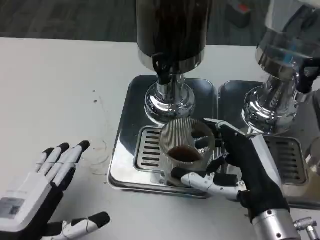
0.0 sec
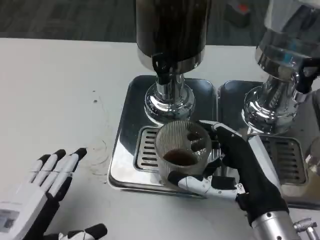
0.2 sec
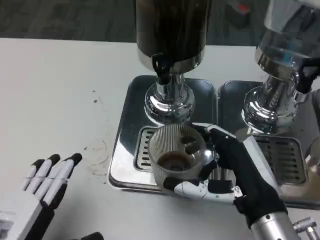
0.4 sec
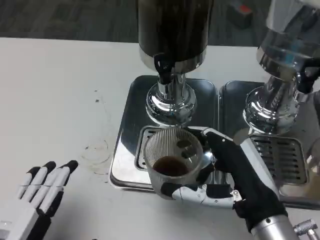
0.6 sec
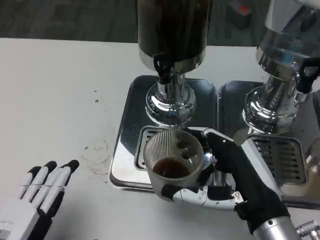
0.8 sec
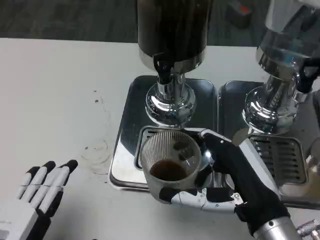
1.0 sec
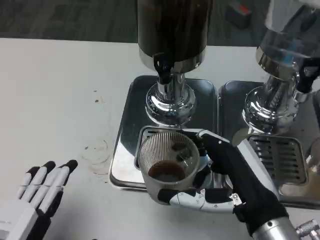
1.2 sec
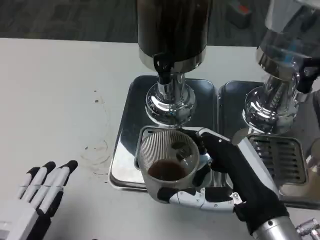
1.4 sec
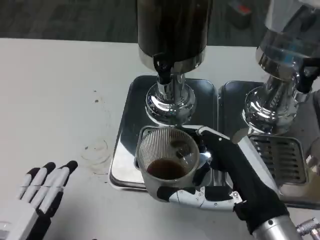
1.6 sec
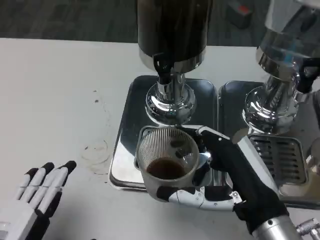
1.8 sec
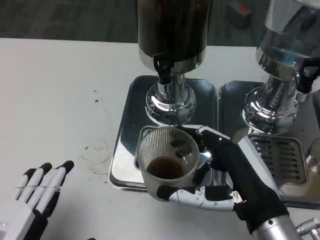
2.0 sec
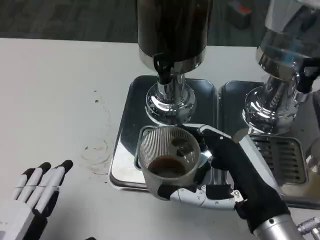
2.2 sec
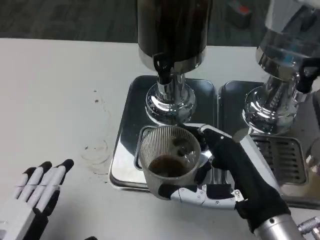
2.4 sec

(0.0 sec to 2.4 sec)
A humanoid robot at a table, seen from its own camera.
Task of the whole recording: Grasp the cup under the faucet to collect the drink, then remove the cup.
1.2 sec - 2.4 sec: Neither hand changes place.

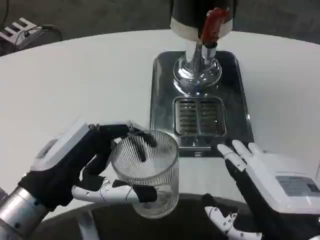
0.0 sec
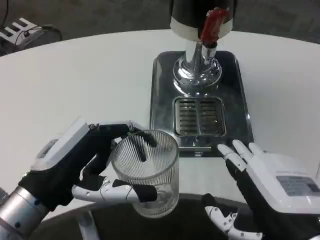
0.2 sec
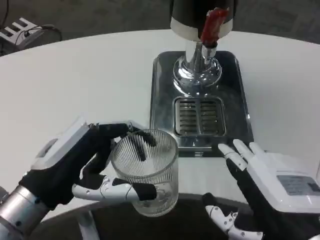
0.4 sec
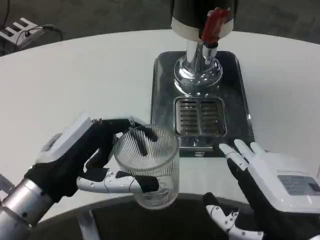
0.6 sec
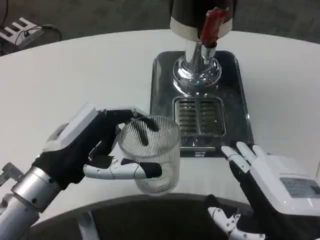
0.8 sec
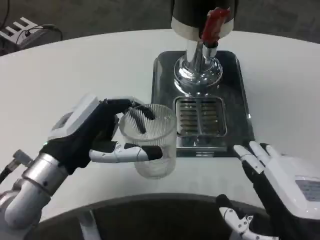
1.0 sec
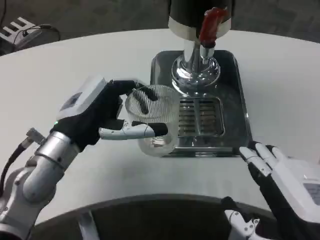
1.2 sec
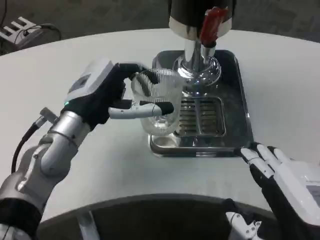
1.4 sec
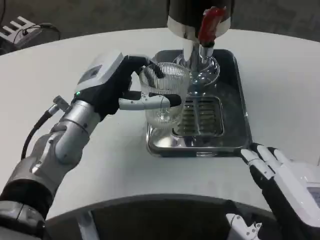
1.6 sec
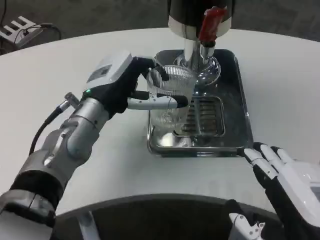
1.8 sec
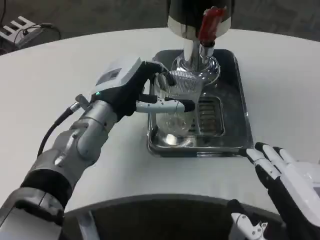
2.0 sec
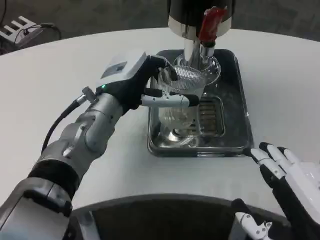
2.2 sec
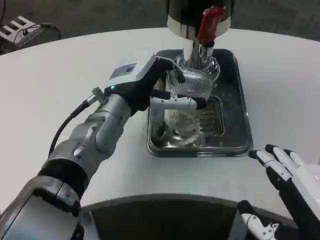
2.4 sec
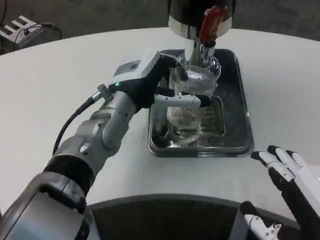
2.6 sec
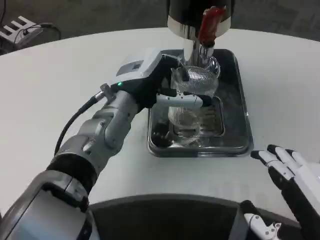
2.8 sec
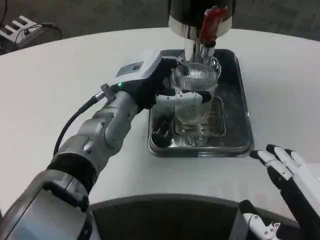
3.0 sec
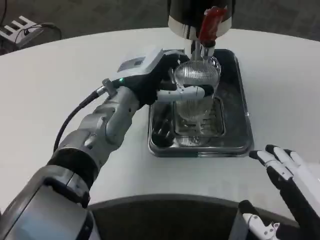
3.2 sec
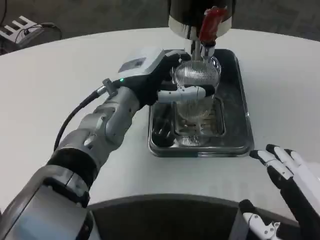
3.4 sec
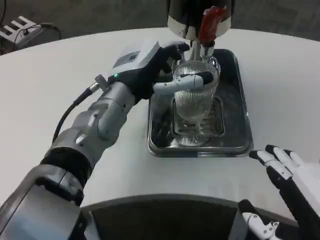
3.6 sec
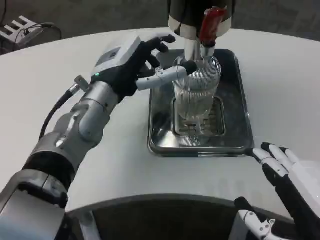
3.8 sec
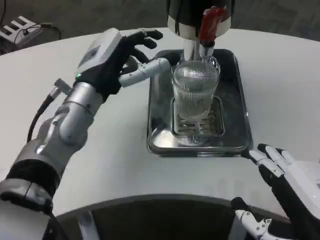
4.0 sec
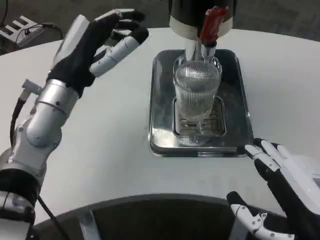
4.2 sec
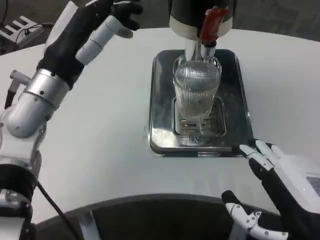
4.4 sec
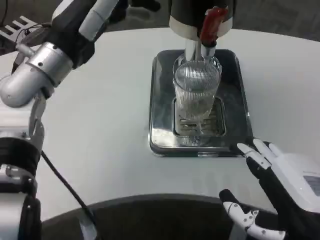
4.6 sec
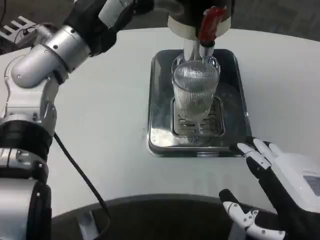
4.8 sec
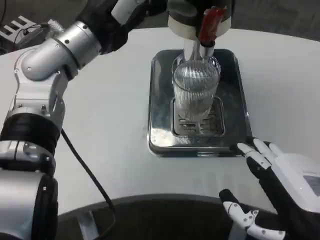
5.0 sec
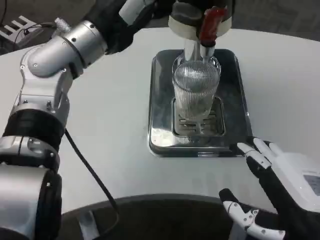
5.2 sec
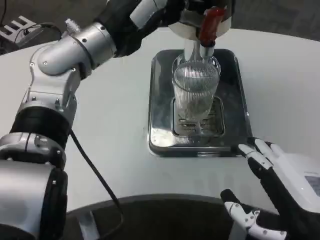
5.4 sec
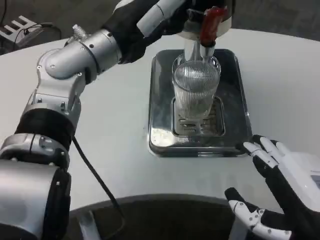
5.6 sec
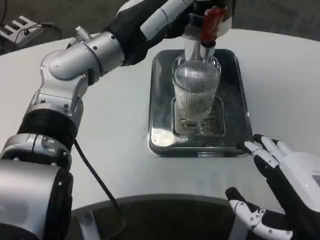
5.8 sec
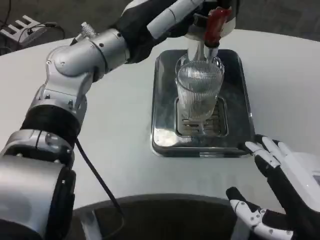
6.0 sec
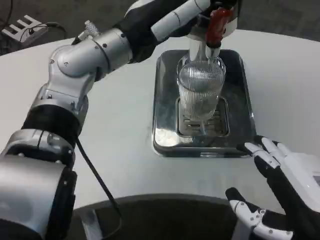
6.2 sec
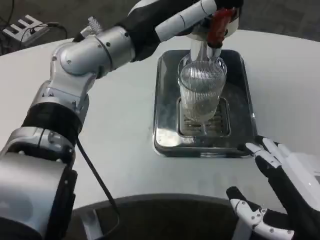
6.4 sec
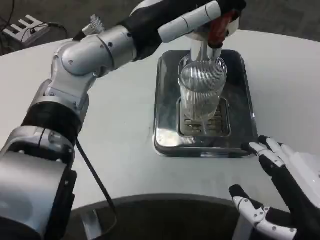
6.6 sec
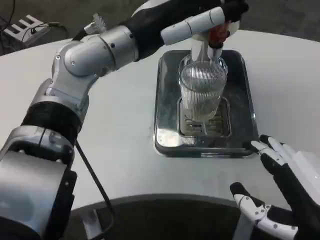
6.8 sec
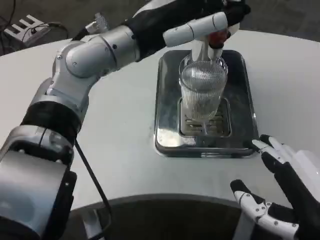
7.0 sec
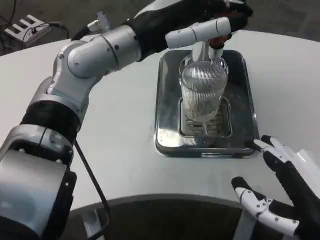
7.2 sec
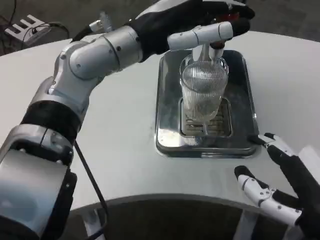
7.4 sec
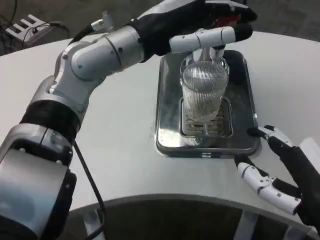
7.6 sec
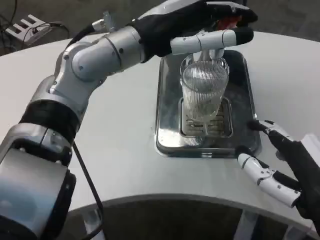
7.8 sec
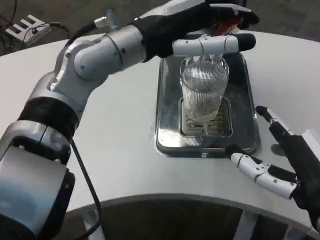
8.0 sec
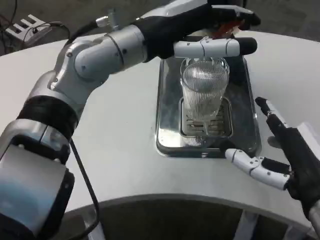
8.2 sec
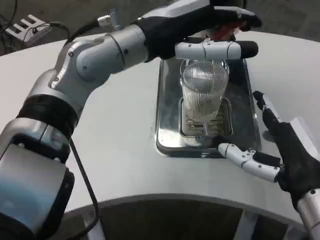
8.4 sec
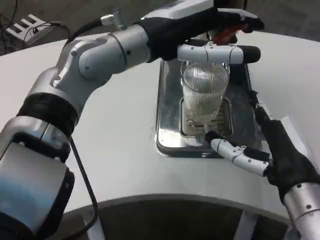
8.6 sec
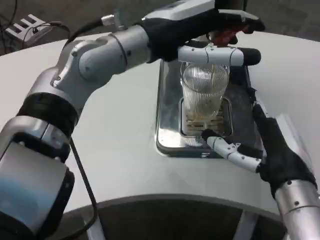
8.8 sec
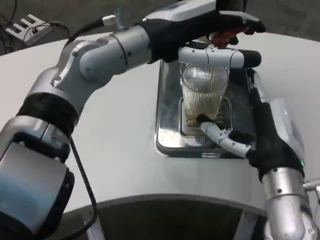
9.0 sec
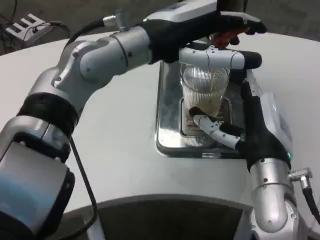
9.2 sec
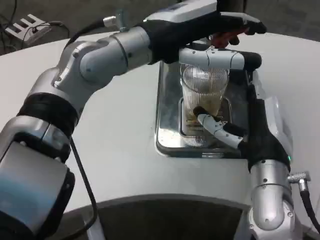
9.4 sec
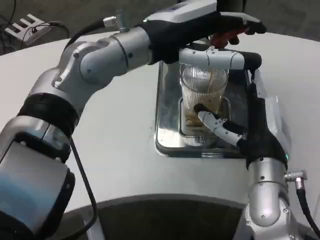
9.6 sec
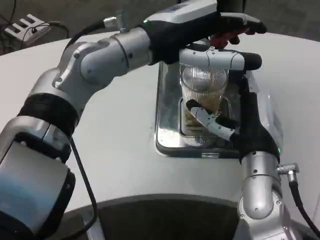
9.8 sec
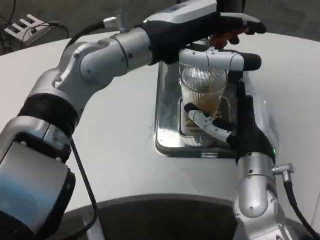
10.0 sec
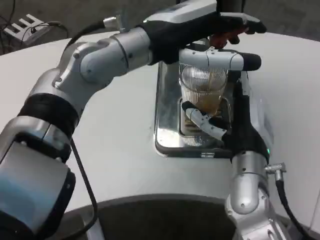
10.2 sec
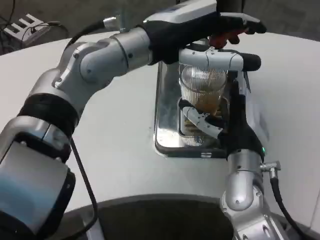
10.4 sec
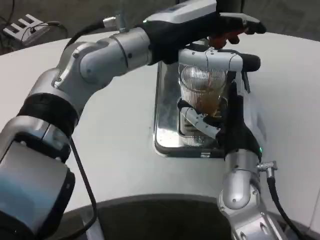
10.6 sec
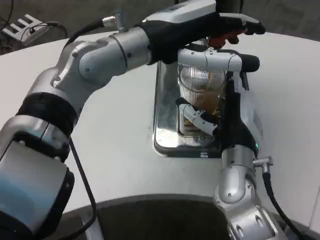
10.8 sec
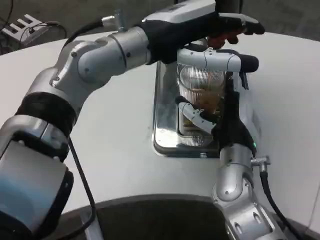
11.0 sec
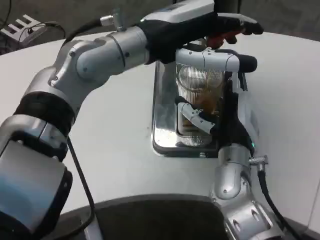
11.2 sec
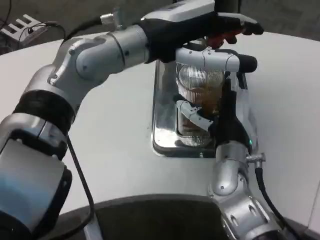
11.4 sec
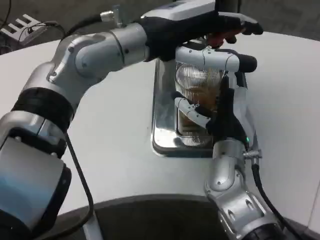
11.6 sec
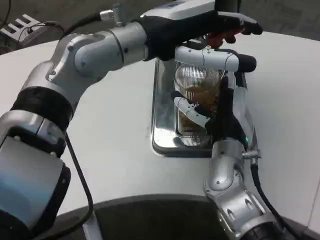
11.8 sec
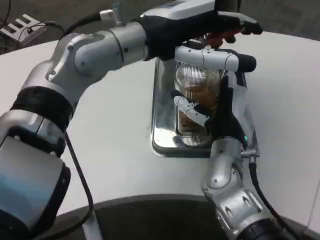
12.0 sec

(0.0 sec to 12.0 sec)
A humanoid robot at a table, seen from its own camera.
Task of the whole recording: Grasp the cup under the faucet to collect the drink, then remove the cup.
0.0 sec - 1.6 sec: The left hand shifts approximately 15 cm forward and to the right.
1.6 sec - 3.0 sec: The left hand shifts approximately 5 cm to the right.
3.0 sec - 4.4 sec: The left hand shifts about 10 cm to the left.
4.4 sec - 6.0 sec: The left hand goes approximately 10 cm to the right and upward.
7.6 sec - 9.0 sec: The right hand heads forward and to the left, covering about 10 cm.
9.0 sec - 10.4 sec: The right hand heads forward, covering about 5 cm.

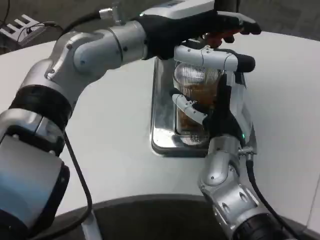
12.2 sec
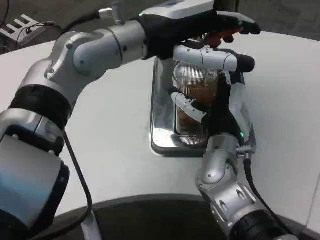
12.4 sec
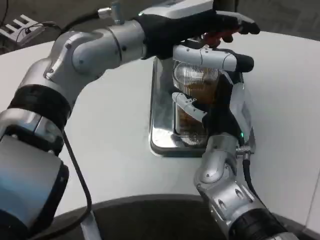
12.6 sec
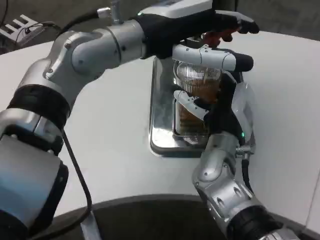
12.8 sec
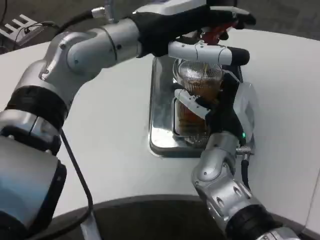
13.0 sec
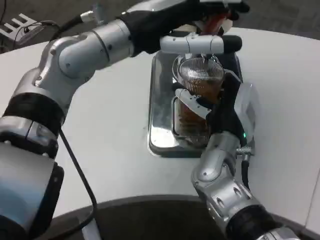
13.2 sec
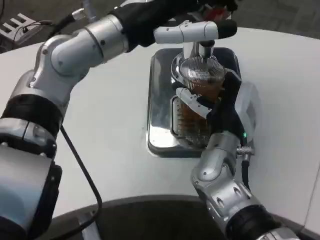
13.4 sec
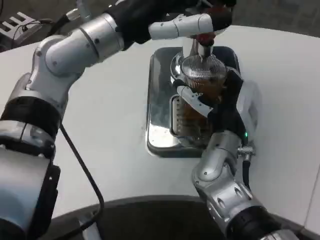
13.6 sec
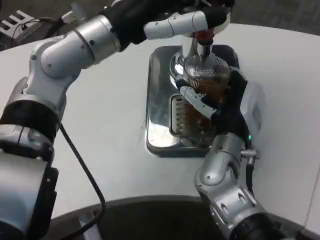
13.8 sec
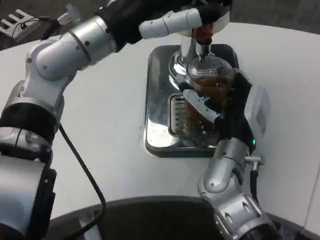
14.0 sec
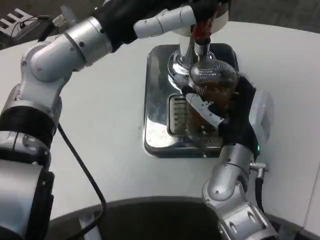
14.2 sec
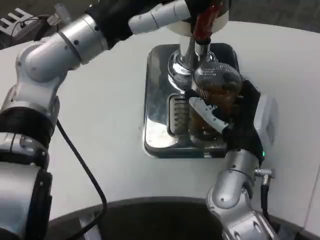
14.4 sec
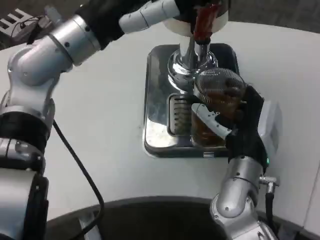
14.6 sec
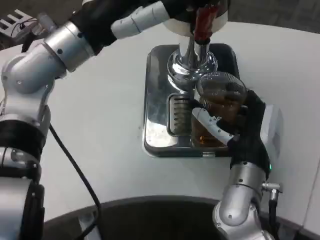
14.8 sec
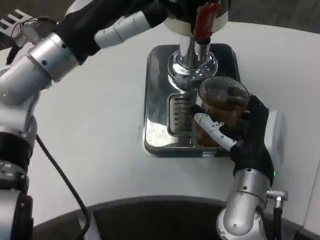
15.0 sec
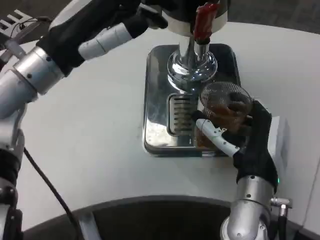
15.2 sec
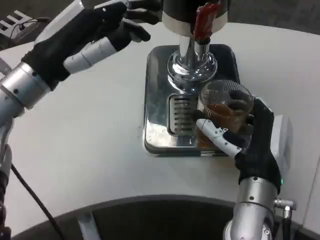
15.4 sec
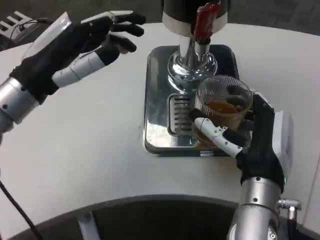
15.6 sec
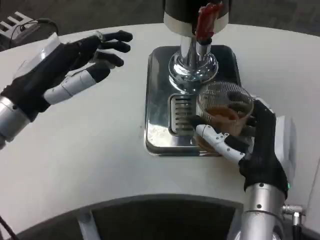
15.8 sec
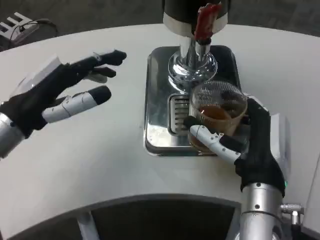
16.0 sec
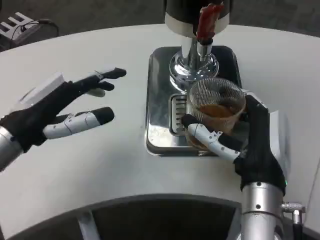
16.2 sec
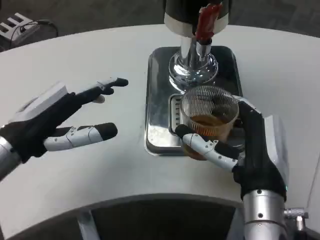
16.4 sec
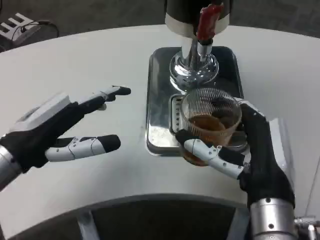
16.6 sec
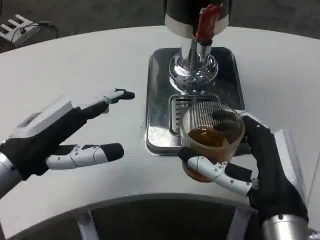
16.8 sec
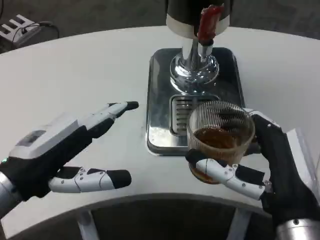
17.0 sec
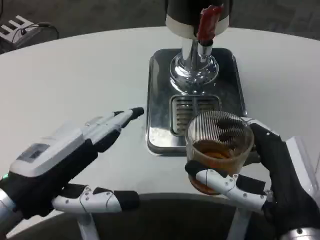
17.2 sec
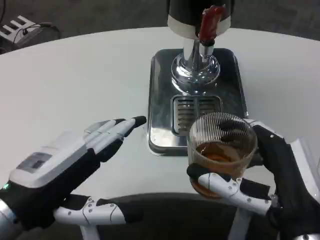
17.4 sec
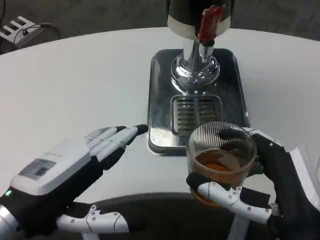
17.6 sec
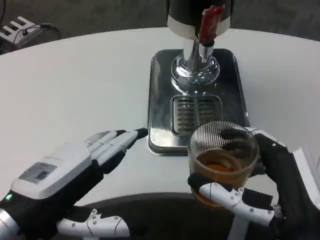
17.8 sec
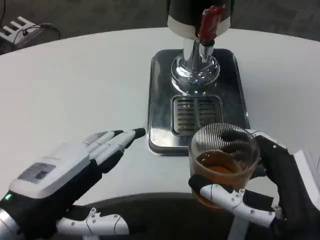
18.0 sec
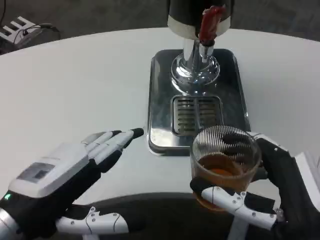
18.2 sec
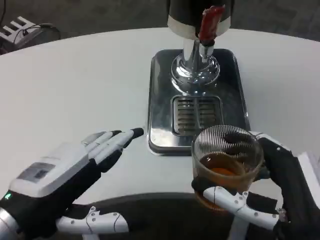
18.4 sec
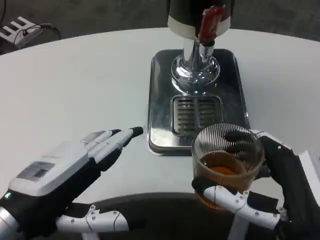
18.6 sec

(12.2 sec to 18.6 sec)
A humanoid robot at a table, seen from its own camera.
Task of the whole recording: Grasp the cup under the faucet to collect the drink, then remove the cup.
13.8 sec - 15.4 sec: The right hand shifts approximately 10 cm backward, while the left hand heads to the left and downward, covering some 10 cm.
15.4 sec - 17.0 sec: The right hand is displaced backward by about 10 cm, while the left hand heads backward and downward, covering roughly 15 cm.
17.0 sec - 18.6 sec: The left hand ends up about 5 cm from where it was.

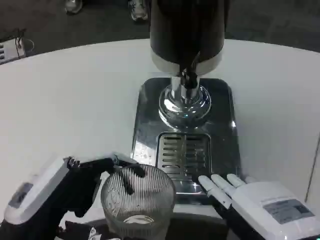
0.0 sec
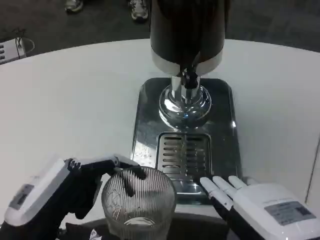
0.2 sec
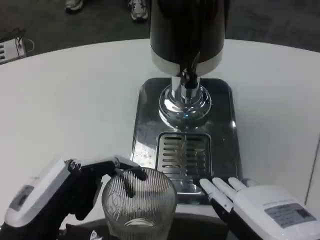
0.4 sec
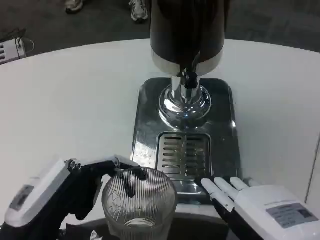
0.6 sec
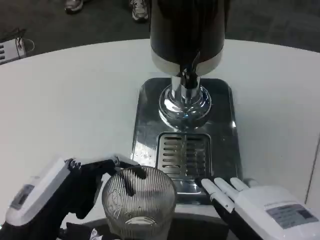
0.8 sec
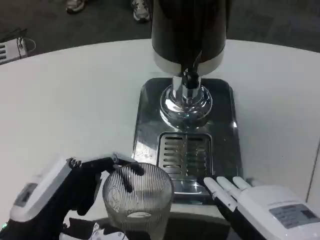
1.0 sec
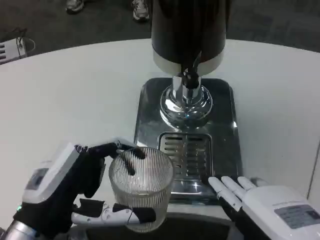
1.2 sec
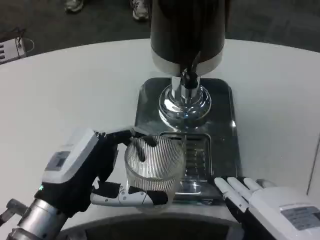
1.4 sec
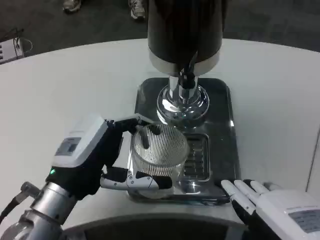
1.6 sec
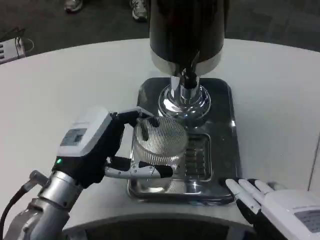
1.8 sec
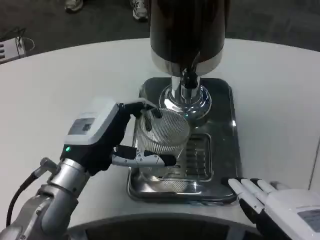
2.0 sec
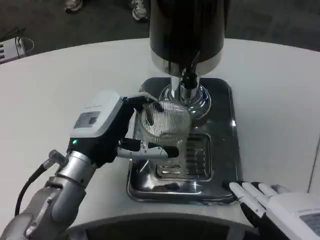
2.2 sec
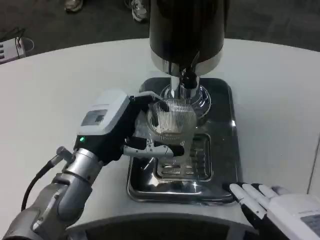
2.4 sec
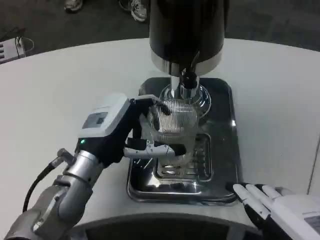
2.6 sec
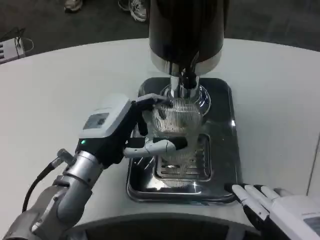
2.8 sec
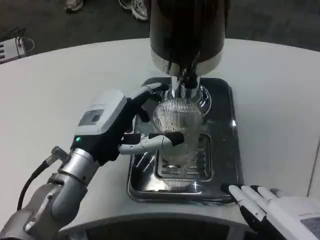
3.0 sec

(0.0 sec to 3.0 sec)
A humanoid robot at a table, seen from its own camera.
Task of the whole recording: Grasp the cup under the faucet to collect the drink, then remove the cup.
0.0 sec - 1.6 sec: The left hand shifts about 10 cm forward.
1.6 sec - 3.0 sec: The left hand travels forward by about 5 cm.
